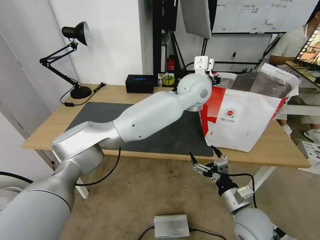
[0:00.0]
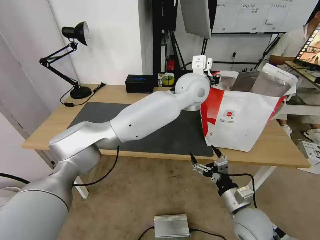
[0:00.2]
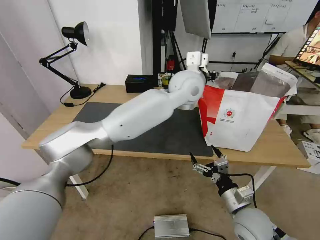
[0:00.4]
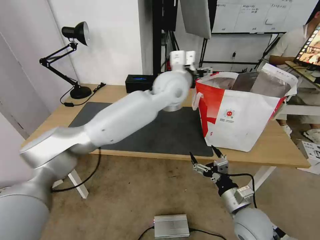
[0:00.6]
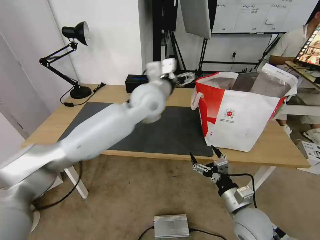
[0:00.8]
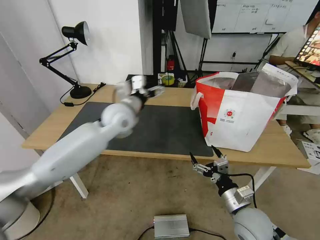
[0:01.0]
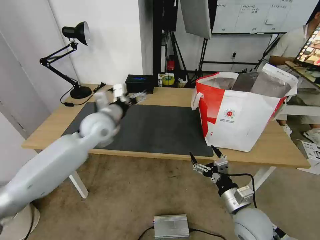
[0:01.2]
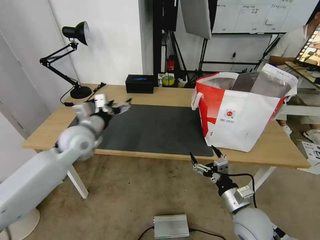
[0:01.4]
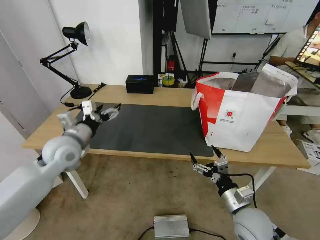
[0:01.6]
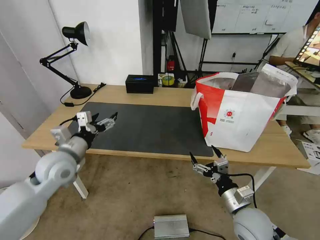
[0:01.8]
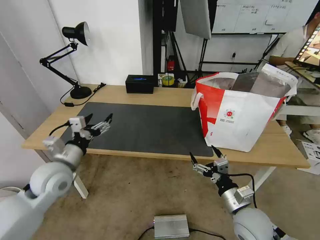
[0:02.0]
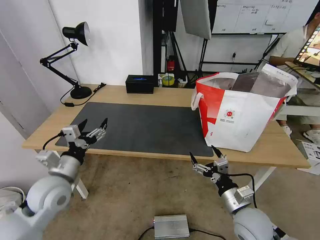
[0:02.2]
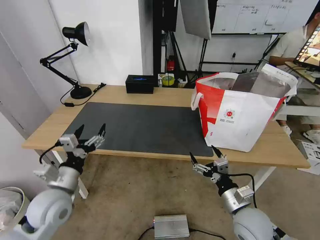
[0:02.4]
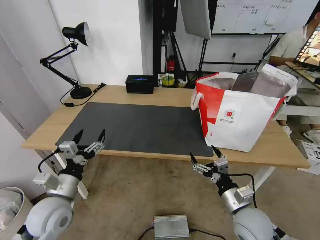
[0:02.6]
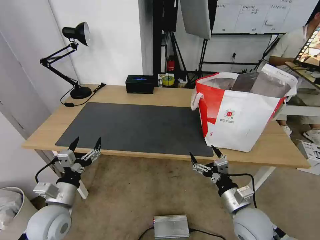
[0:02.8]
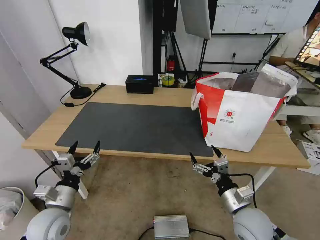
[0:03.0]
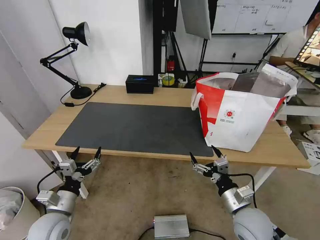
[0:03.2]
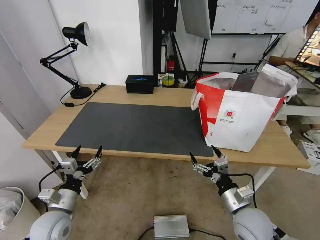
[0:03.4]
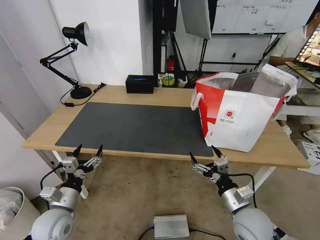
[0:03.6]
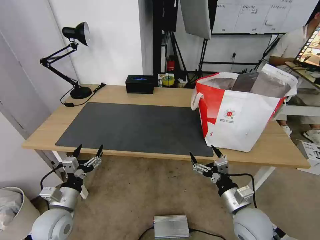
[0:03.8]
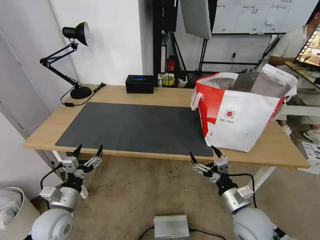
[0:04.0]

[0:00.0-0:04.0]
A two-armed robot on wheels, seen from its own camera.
Task of the whole recording: Pick up the trash from the table and place it into the takeout bag.
0:00.0 to 0:01.4: The left gripper goes about 35 cm to the left, and opens its fingers.
0:01.4 to 0:02.6: The left gripper moves backward and downward, roughly 20 cm.
0:02.6 to 0:04.0: The left gripper heads downward, covering approximately 5 cm.

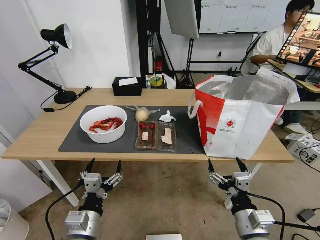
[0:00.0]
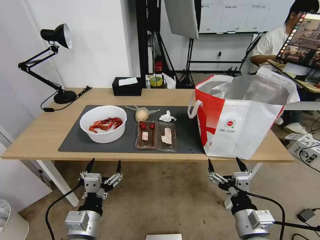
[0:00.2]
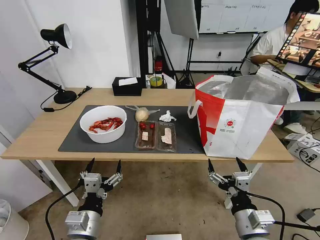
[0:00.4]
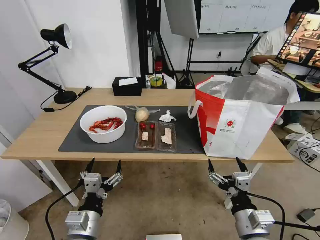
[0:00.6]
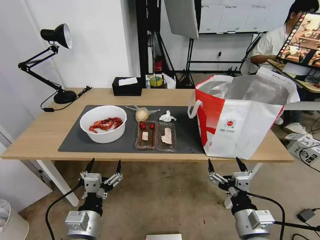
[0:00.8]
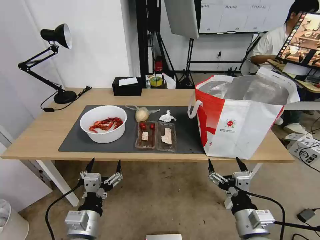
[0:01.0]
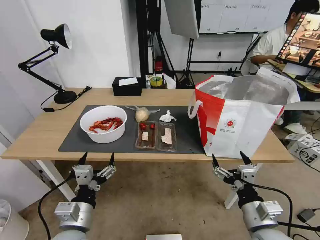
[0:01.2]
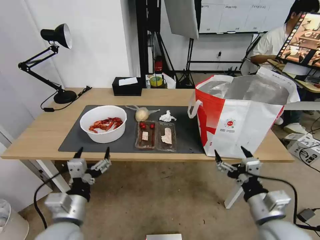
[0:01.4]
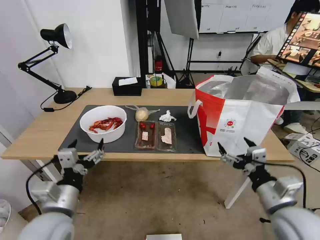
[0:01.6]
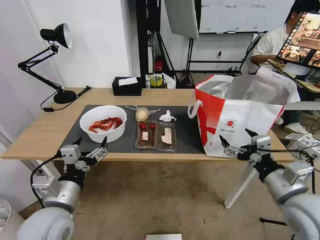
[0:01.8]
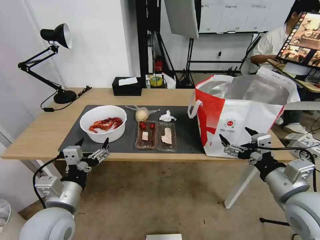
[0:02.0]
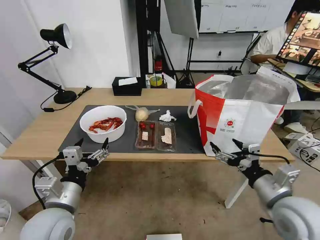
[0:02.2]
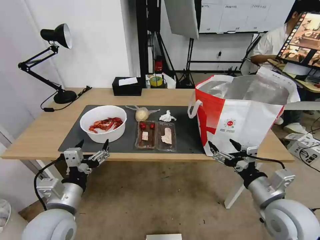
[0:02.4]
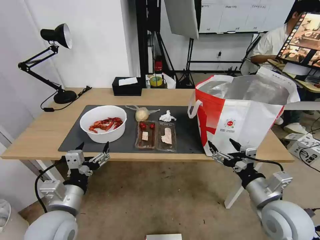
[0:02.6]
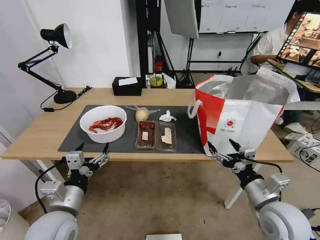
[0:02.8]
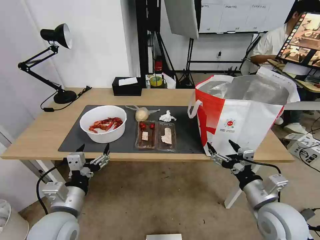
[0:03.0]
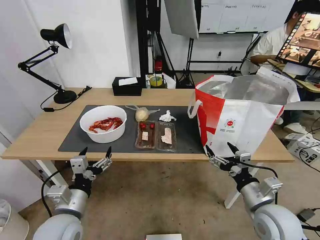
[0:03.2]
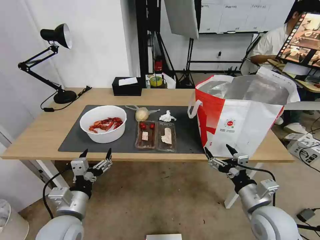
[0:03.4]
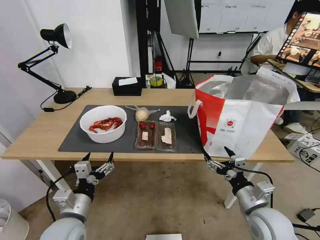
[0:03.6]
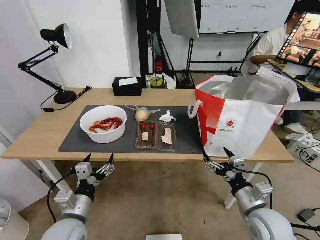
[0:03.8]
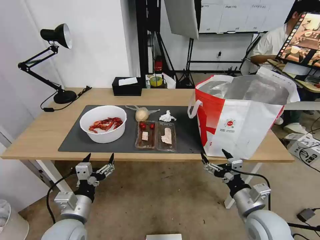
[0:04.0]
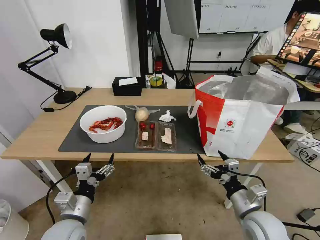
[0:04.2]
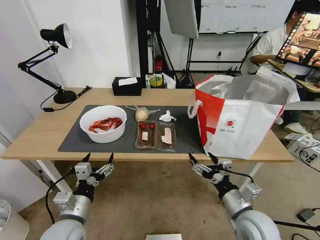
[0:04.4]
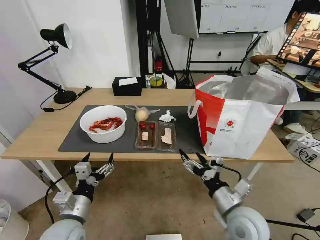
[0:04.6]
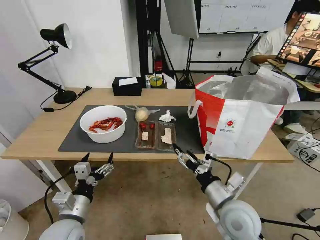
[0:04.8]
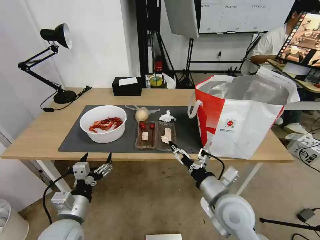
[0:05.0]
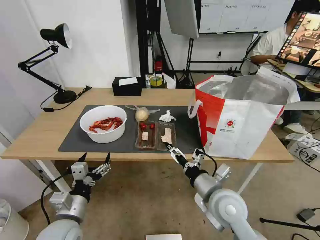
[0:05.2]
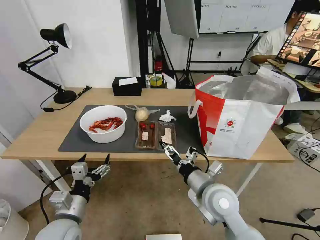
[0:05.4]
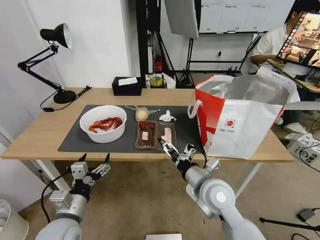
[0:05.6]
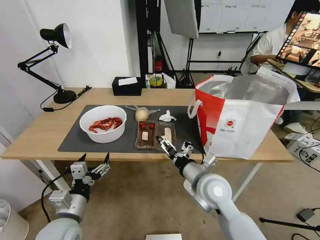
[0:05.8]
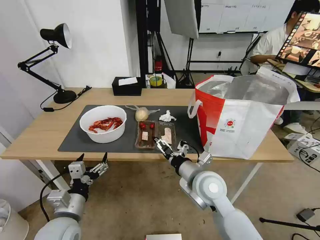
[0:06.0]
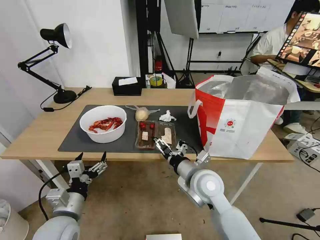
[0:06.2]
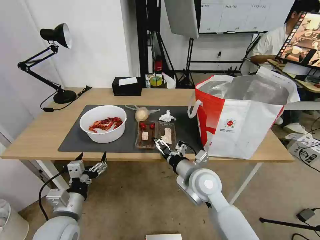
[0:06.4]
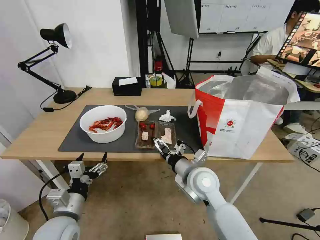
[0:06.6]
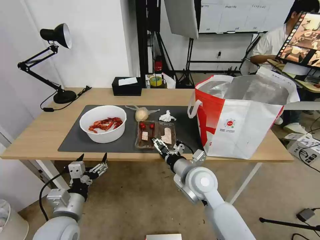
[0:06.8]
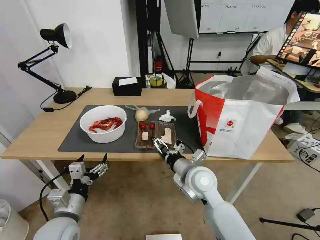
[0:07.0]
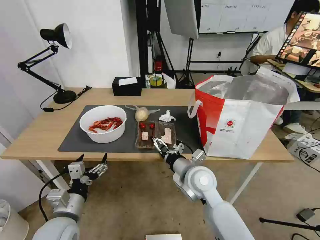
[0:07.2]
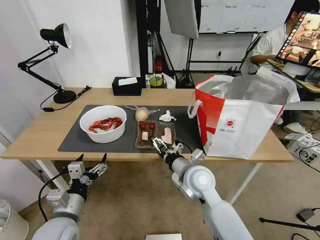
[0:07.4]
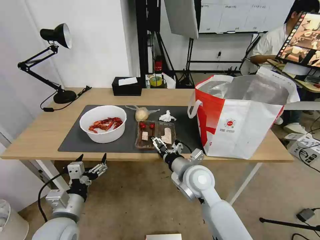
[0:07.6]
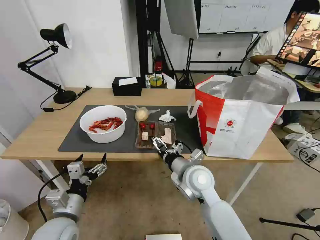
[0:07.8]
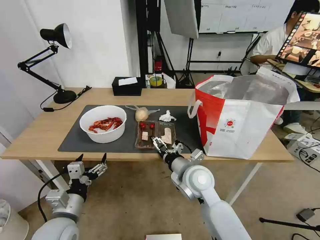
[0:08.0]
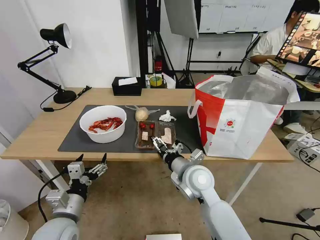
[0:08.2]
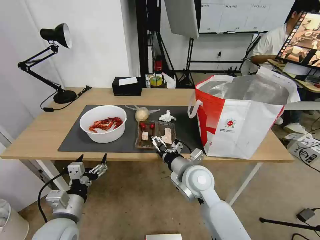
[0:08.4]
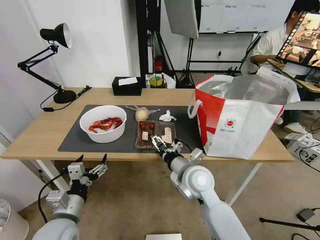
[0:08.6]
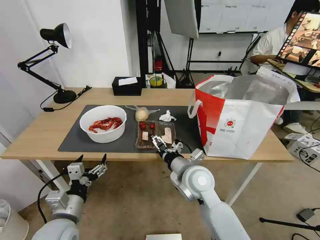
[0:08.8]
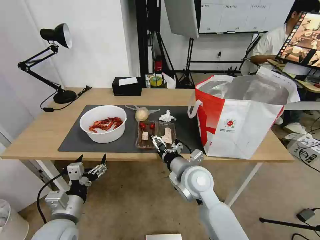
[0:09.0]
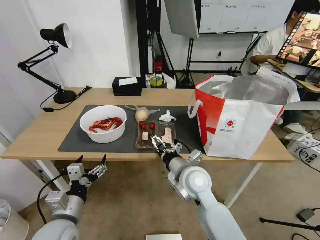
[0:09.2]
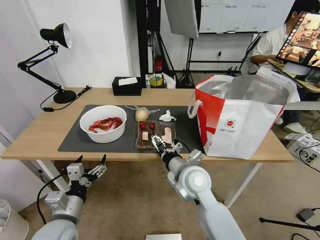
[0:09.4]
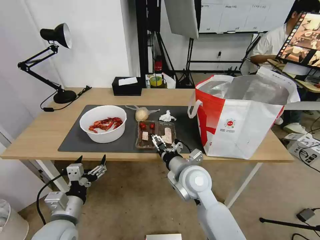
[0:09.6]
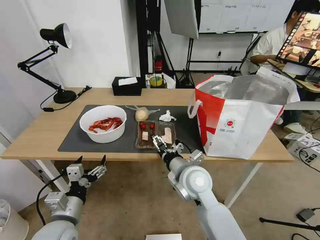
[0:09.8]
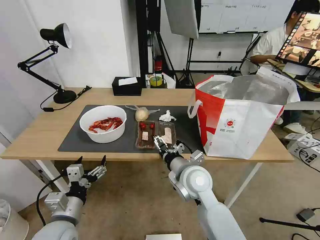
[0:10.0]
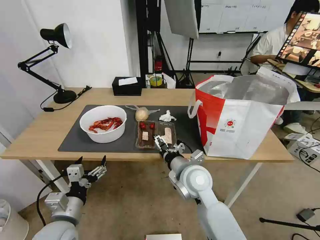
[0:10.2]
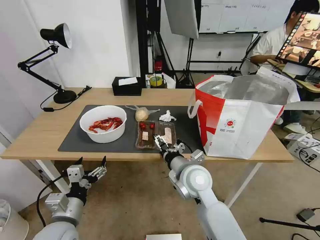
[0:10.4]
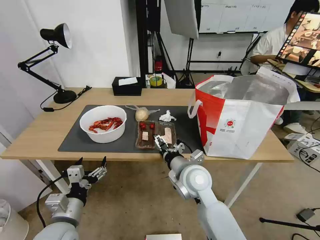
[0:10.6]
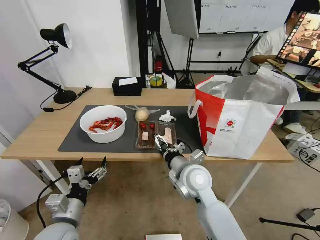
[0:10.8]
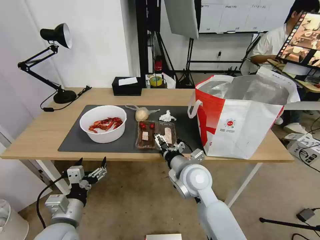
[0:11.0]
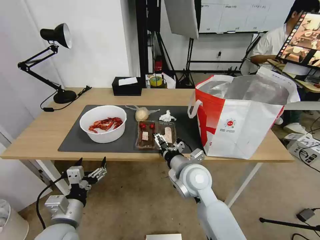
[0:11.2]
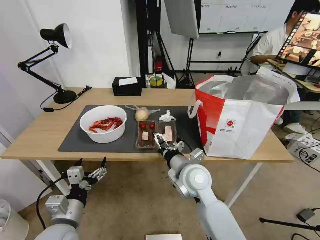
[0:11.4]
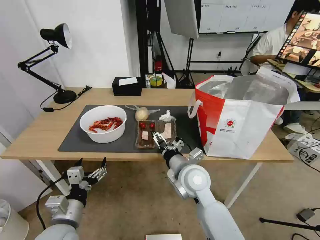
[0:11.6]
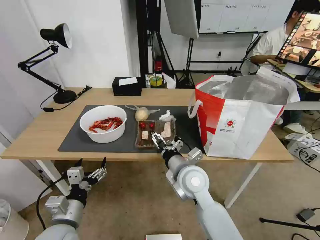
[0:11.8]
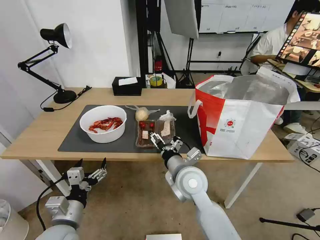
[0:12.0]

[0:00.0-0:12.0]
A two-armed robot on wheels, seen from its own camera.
Task of the whole recording: Pick up the trash from the table and place it into the takeout bag.
0:01.6 to 0:03.0: The grippers move only a little.
0:03.0 to 0:04.4: The left gripper shifts by roughly 5 cm. The right gripper moves about 5 cm.
0:04.4 to 0:06.0: The right gripper heads to the left and forward, covering about 15 cm.
0:06.0 to 0:07.6: The grippers stay close to where they were, moving slightly.
0:07.6 to 0:09.0: The two grippers keep their place.
0:09.0 to 0:10.4: Neither gripper changes place.
0:10.4 to 0:12.0: The grippers stay close to where they were, moving slightly.

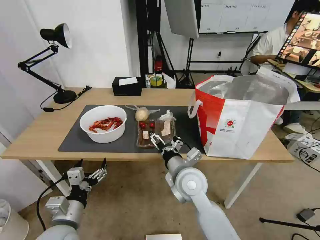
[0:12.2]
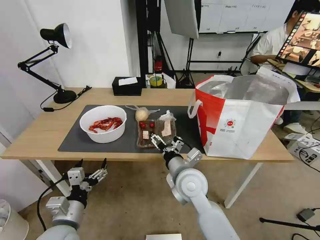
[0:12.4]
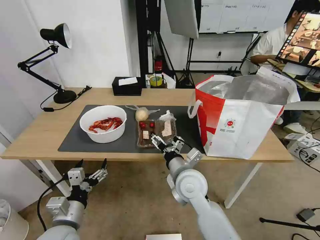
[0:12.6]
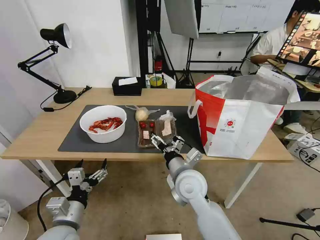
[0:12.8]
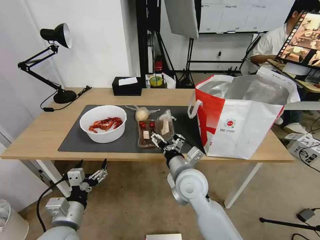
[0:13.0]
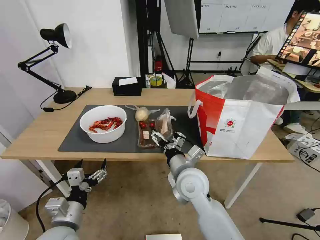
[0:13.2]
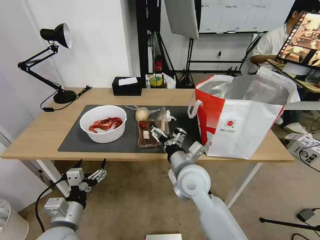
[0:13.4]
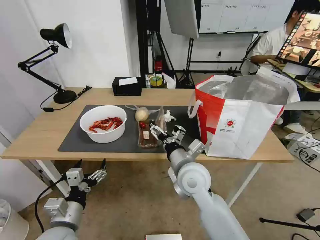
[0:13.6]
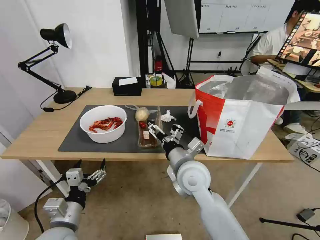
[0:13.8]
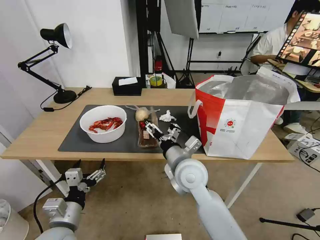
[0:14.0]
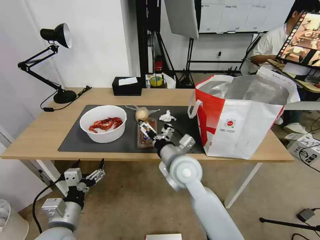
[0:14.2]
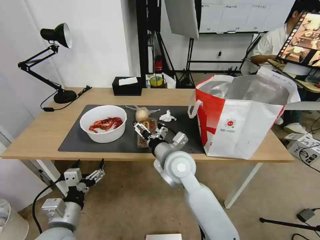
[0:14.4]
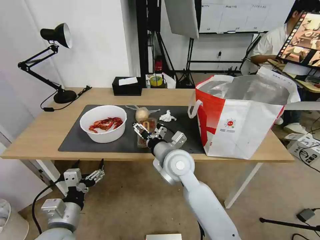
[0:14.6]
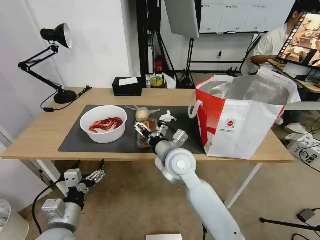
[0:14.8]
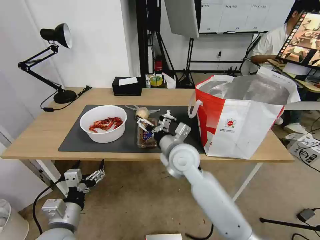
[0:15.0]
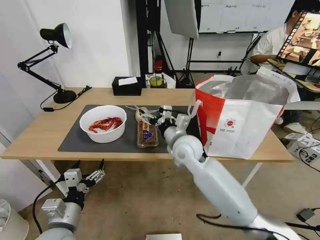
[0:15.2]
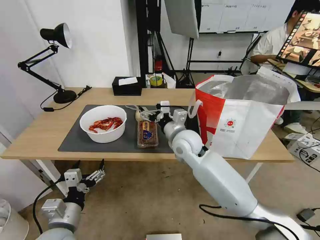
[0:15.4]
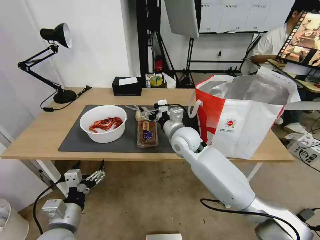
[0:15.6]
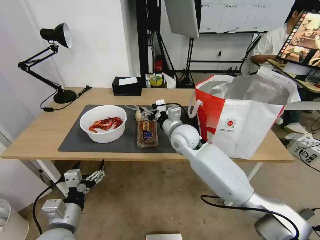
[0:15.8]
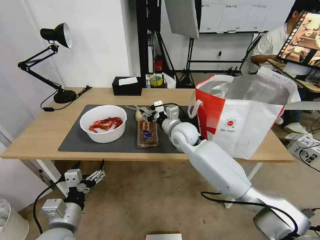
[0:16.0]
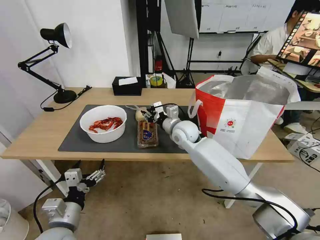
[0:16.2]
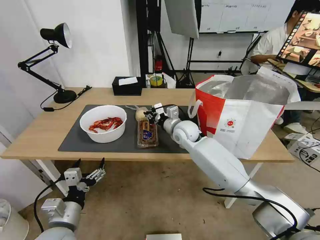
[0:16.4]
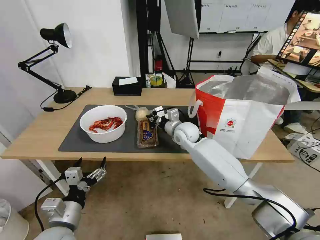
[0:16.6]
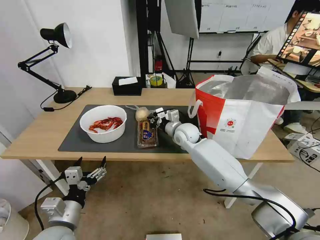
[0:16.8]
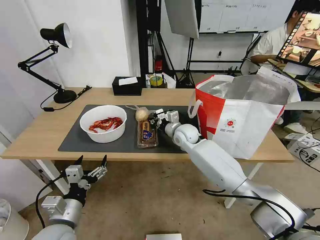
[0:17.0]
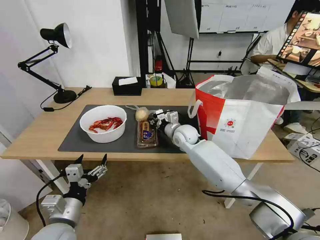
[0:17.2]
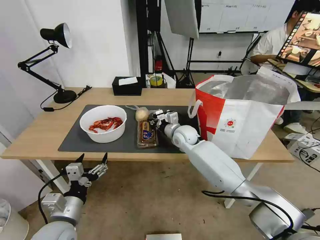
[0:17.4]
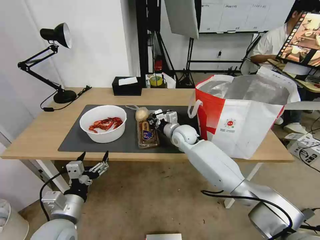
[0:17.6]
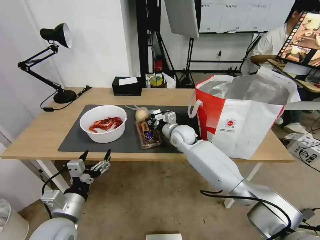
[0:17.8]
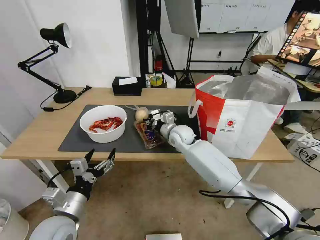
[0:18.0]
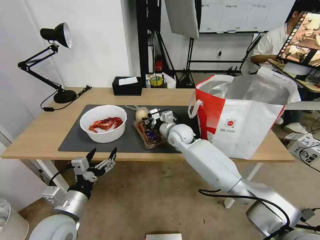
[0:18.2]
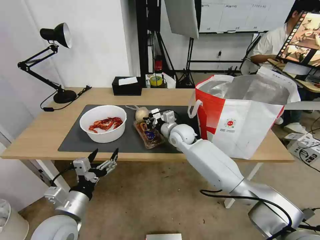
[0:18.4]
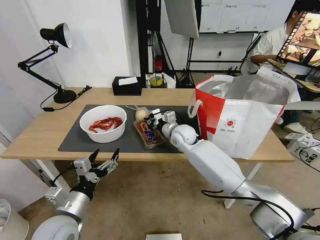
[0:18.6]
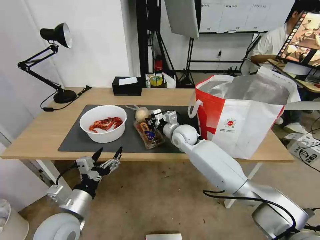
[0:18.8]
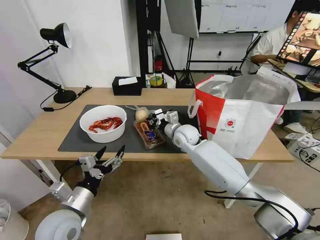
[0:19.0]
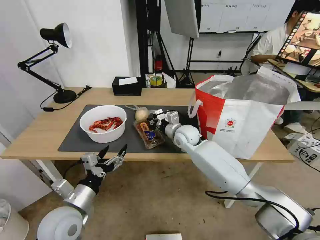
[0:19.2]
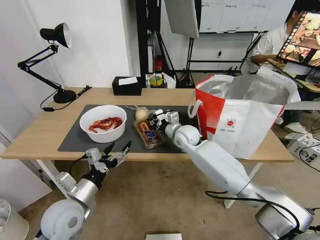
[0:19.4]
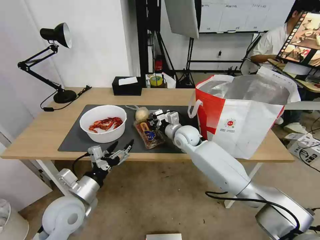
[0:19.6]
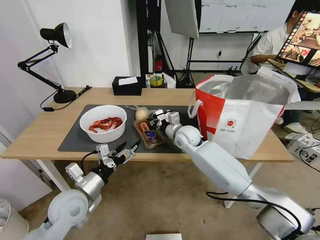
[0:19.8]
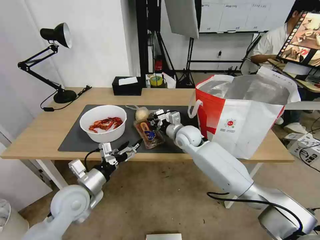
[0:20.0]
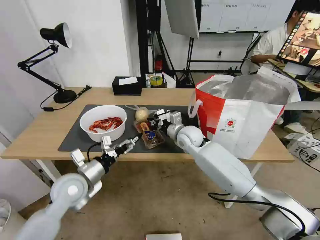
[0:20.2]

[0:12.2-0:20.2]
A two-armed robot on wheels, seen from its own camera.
Task of the whole recording: Pick up the trash from the table and place it into the takeout bag.
0:12.2 to 0:13.8: The grippers move only a little.
0:13.8 to 0:15.4: The right gripper is displaced forward by some 10 cm.
0:15.4 to 0:17.0: The right gripper moves forward and downward, approximately 10 cm, and closes.
0:17.0 to 0:18.6: The grippers stay close to where they were, moving slightly.
0:18.6 to 0:20.2: The left gripper travels forward by approximately 10 cm.
